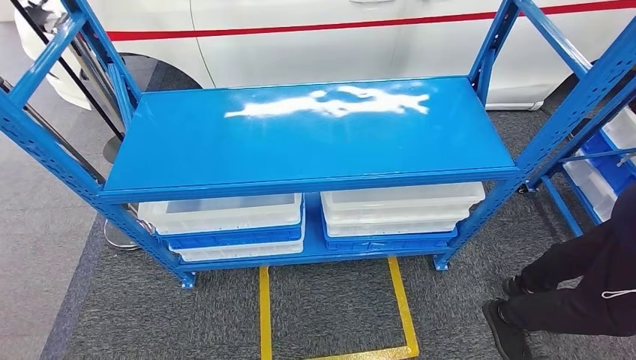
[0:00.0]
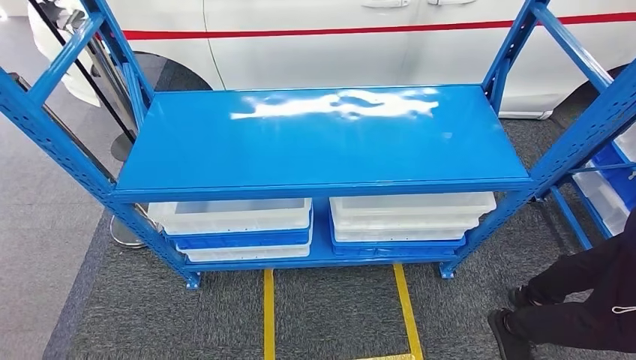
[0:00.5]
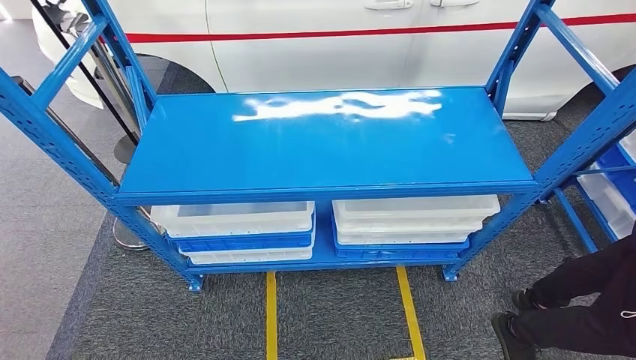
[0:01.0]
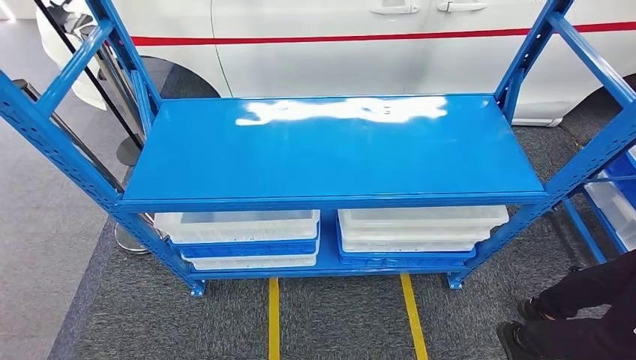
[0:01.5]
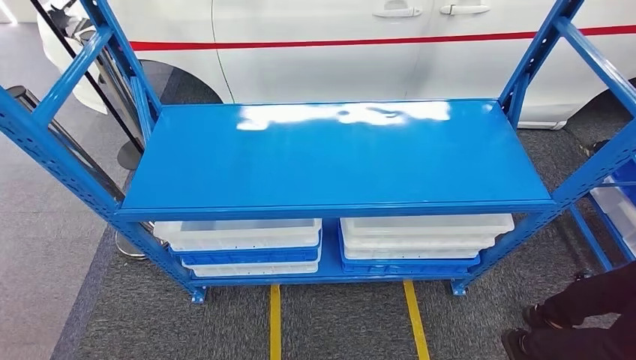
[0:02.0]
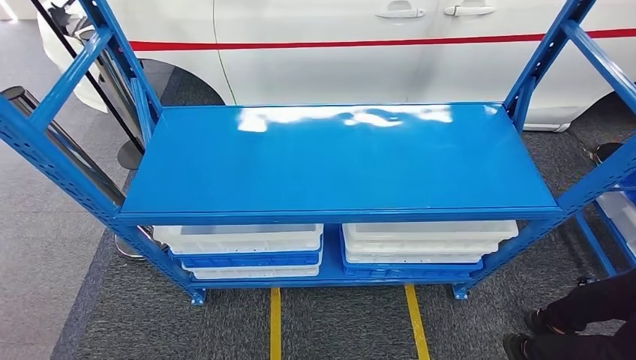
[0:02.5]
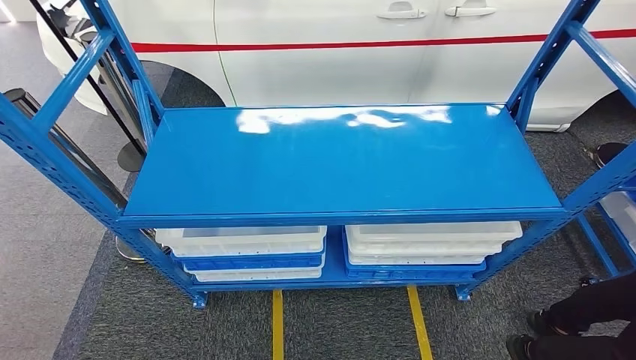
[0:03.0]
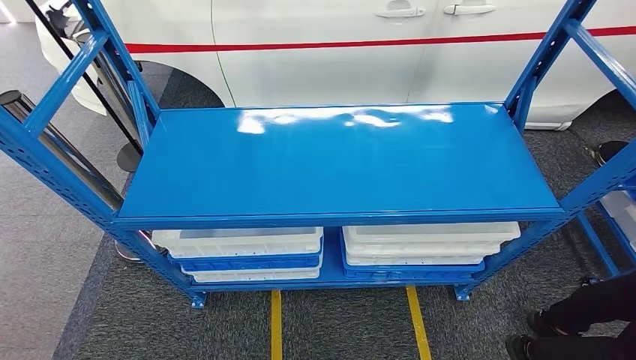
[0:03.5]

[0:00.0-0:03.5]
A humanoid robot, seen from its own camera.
Step, 0:00.0 to 0:03.5: Move to the initial position of the shelf.
